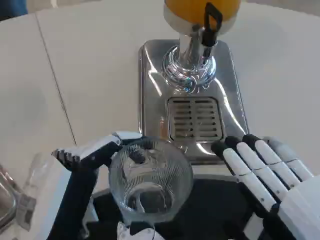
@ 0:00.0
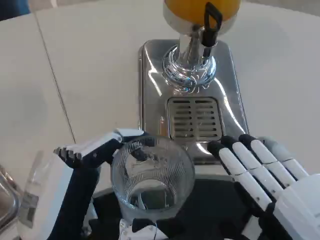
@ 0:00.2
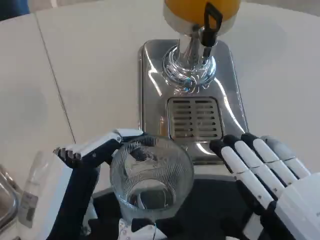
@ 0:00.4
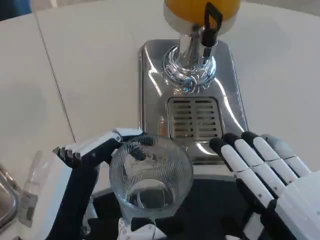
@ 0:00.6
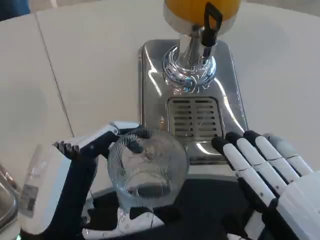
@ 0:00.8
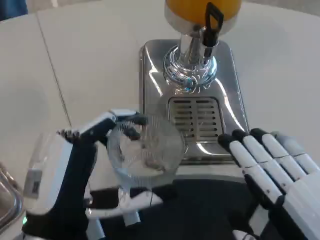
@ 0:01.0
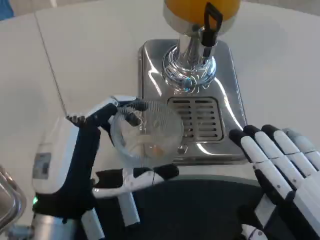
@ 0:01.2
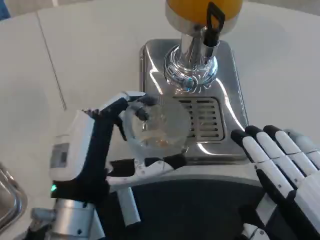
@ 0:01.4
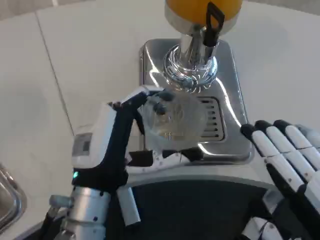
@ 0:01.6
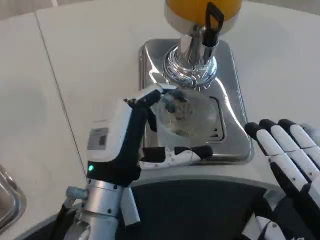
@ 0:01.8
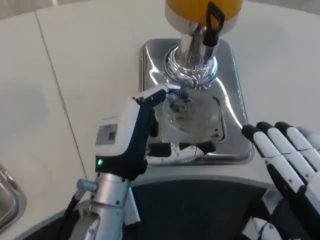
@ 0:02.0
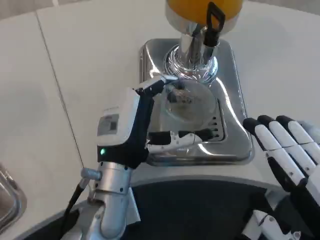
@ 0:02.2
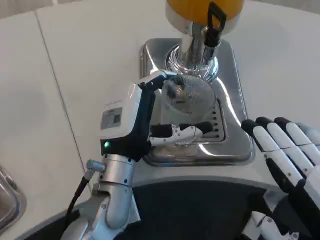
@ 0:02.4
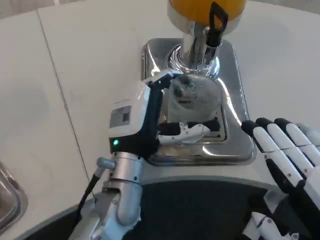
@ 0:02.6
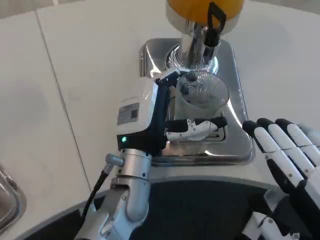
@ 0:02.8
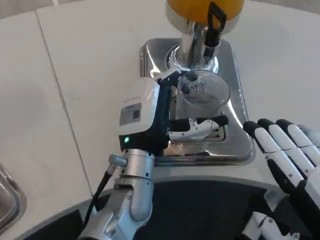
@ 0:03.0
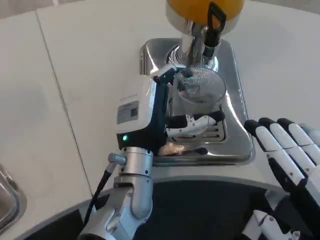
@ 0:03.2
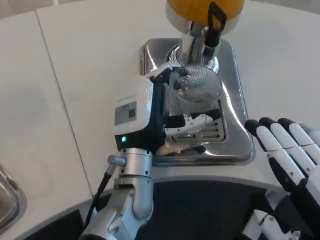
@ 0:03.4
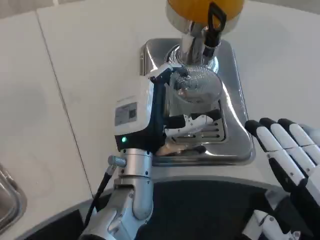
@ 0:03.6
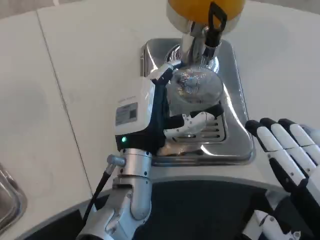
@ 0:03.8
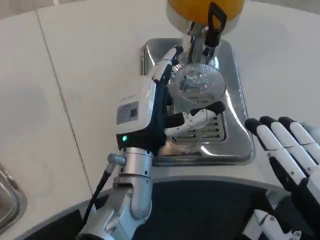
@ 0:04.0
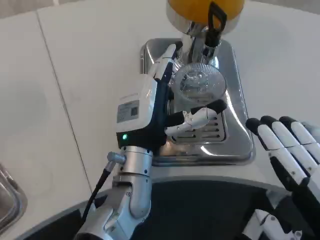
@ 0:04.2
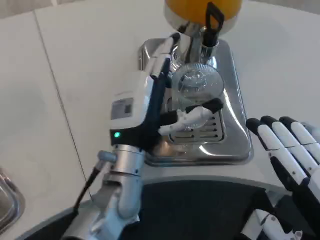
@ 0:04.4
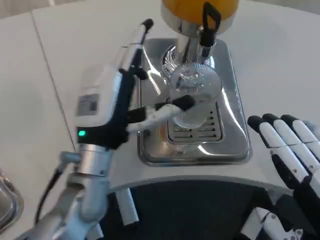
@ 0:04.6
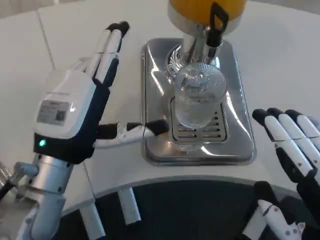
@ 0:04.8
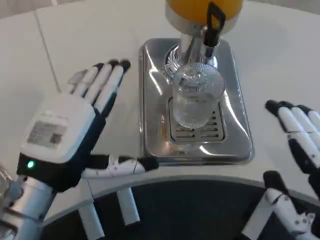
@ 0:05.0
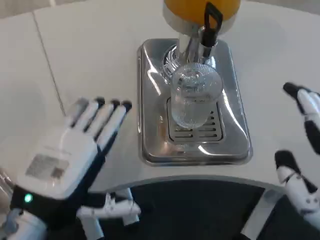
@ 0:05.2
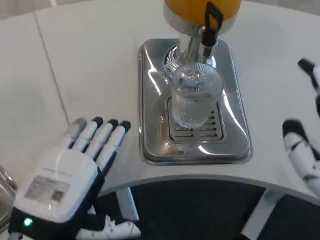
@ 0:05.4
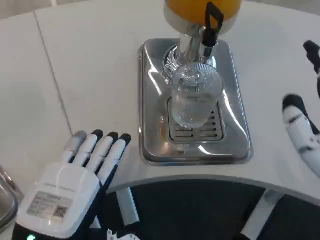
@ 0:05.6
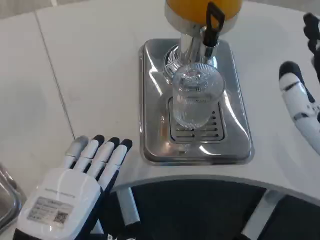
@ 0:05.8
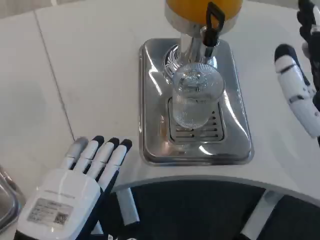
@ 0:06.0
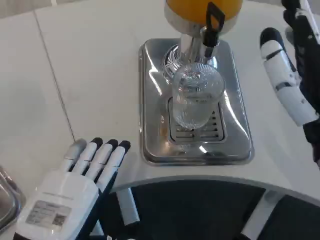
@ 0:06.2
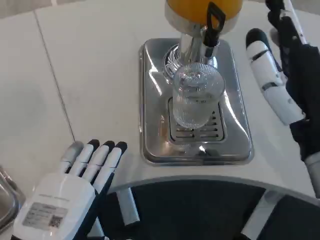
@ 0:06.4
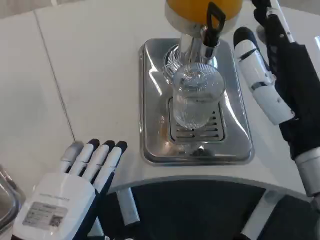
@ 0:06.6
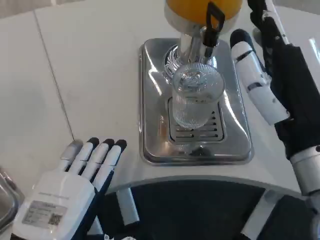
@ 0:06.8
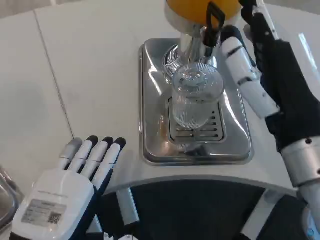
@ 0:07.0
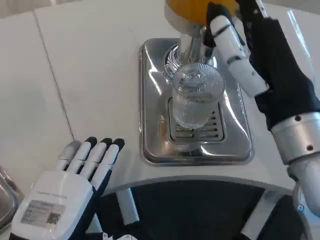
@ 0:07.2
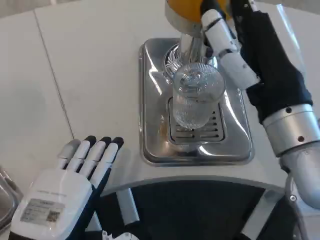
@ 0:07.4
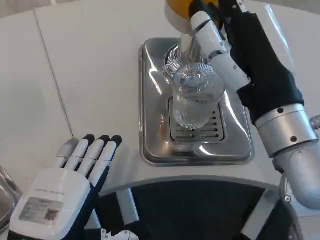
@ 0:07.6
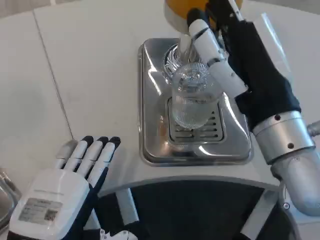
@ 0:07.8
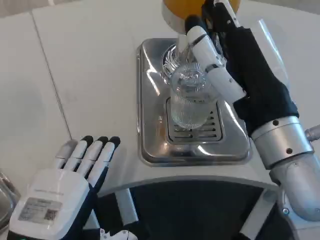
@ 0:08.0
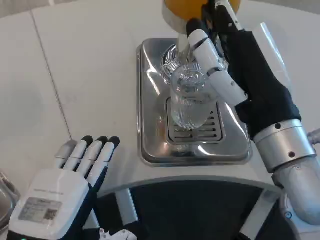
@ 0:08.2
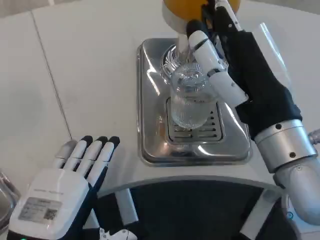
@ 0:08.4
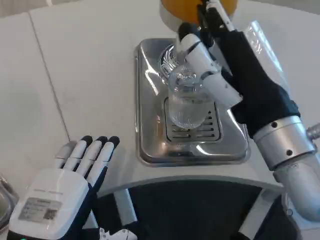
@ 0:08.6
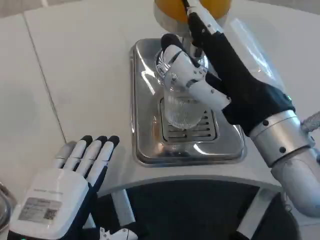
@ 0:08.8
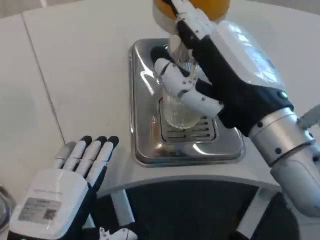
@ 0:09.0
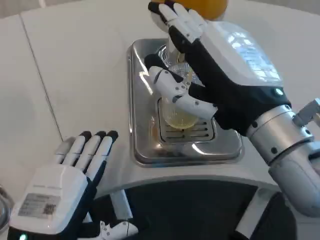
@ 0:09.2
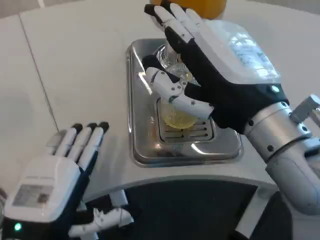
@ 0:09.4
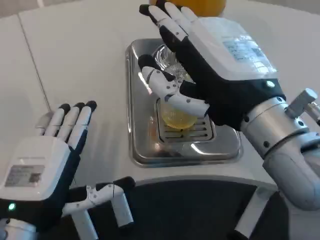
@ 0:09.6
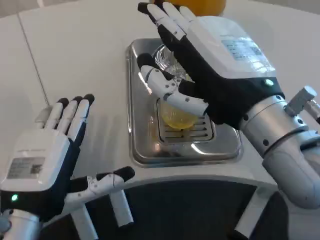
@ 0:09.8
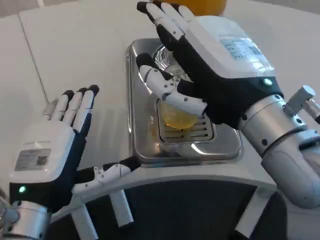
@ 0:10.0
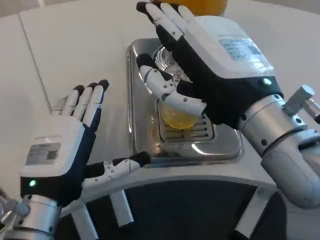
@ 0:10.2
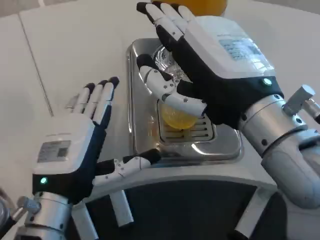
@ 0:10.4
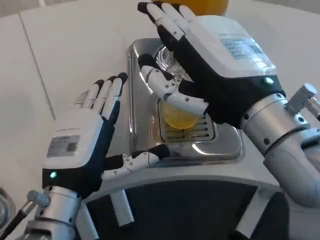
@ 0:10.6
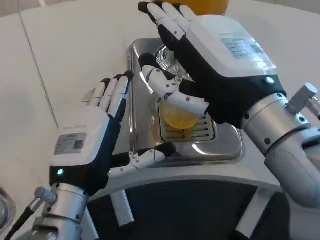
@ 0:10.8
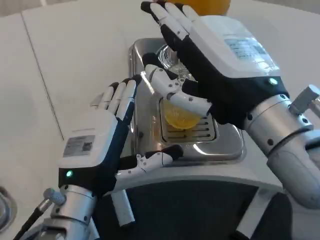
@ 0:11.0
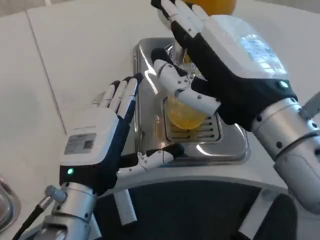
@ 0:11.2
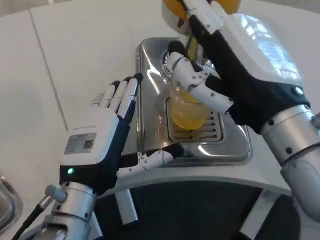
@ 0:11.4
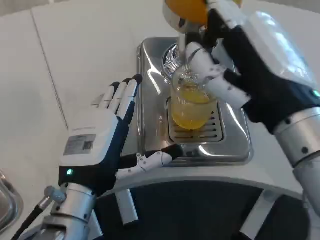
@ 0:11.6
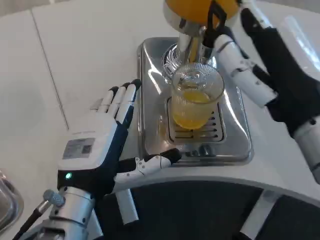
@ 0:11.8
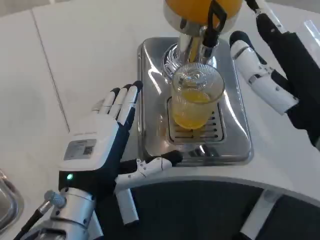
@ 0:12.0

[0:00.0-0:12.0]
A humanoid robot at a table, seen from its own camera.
Task of the whole recording: Grasp the cup under the faucet to collect the drink, then remove the cup.
0:00.0 to 0:01.6: The left hand goes approximately 10 cm forward.
0:01.6 to 0:03.0: The left hand goes roughly 10 cm forward and to the right.
0:04.4 to 0:06.0: The right hand heads forward, covering roughly 10 cm; the left hand moves backward and to the left, some 20 cm.
0:06.0 to 0:07.6: The right hand is displaced to the left and forward by some 5 cm.
0:09.0 to 0:10.4: The left hand moves forward, about 5 cm.
0:10.4 to 0:12.0: The right hand shifts some 5 cm to the right.

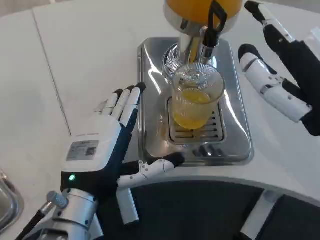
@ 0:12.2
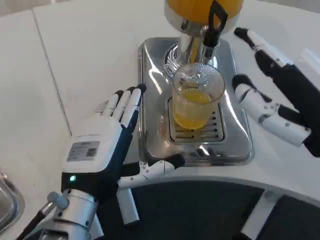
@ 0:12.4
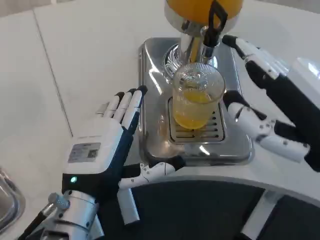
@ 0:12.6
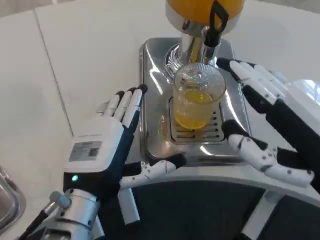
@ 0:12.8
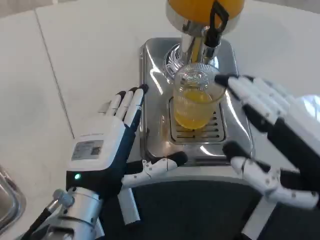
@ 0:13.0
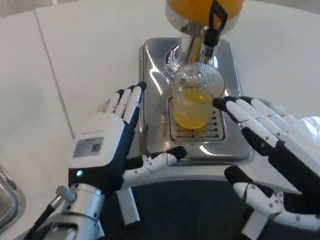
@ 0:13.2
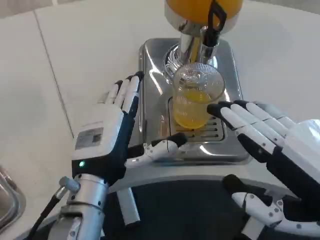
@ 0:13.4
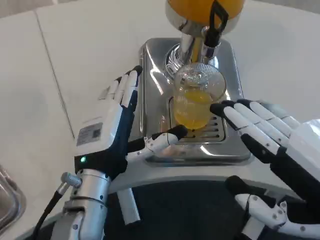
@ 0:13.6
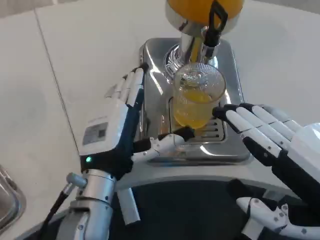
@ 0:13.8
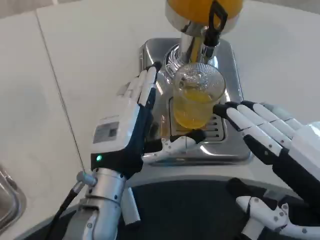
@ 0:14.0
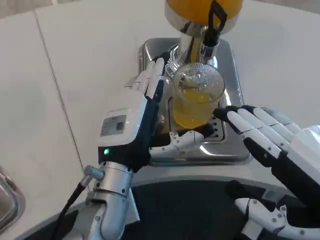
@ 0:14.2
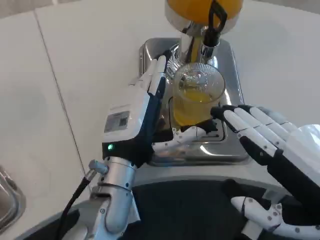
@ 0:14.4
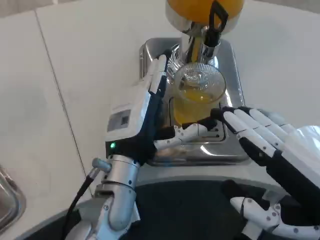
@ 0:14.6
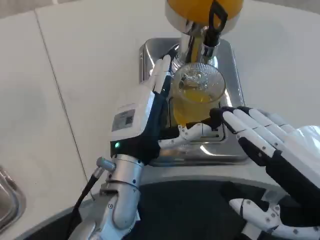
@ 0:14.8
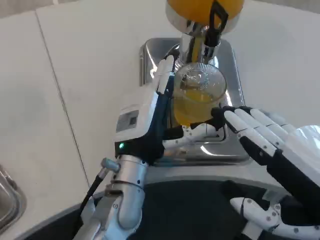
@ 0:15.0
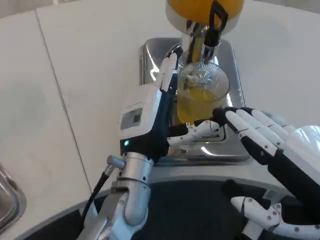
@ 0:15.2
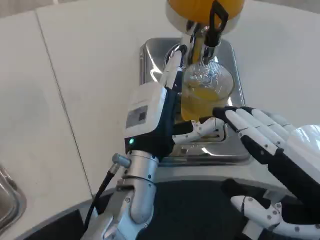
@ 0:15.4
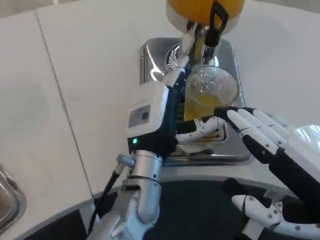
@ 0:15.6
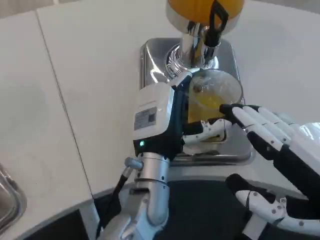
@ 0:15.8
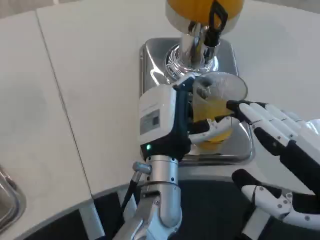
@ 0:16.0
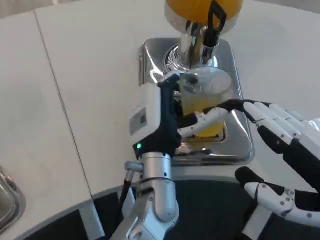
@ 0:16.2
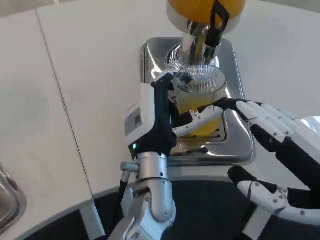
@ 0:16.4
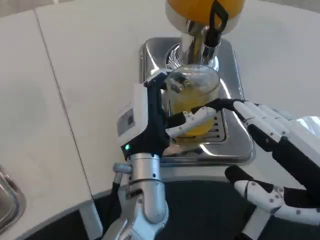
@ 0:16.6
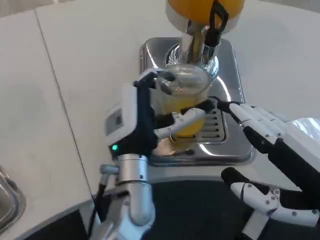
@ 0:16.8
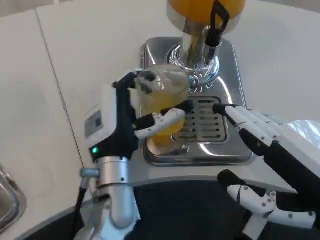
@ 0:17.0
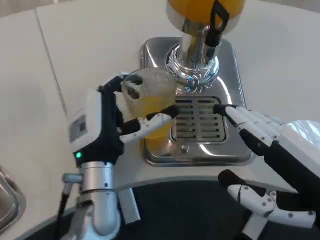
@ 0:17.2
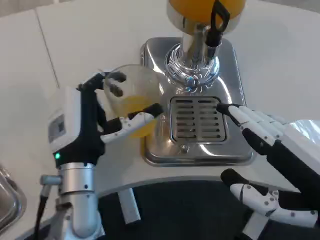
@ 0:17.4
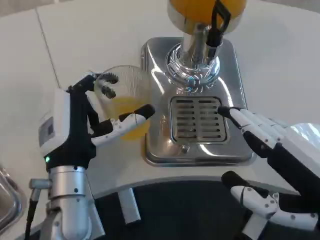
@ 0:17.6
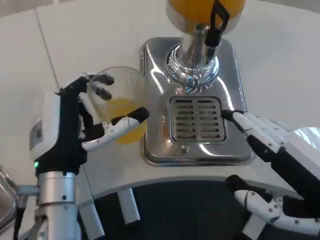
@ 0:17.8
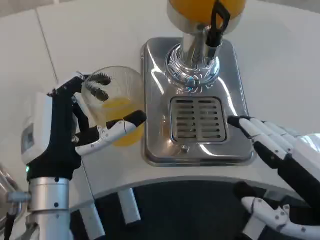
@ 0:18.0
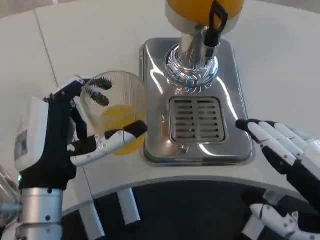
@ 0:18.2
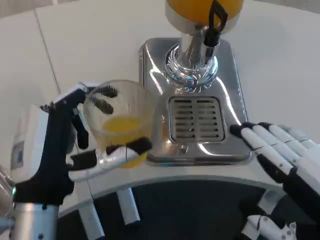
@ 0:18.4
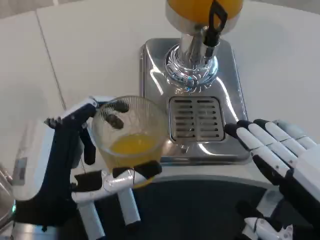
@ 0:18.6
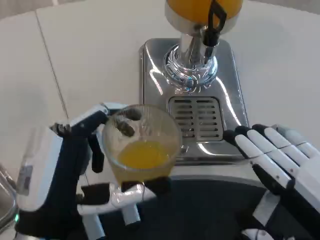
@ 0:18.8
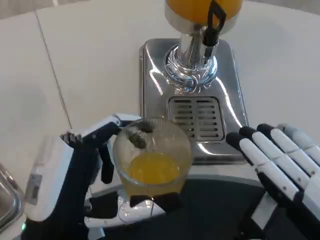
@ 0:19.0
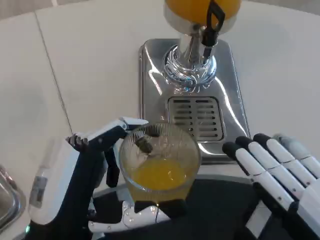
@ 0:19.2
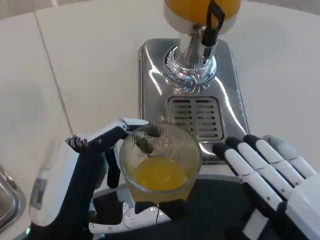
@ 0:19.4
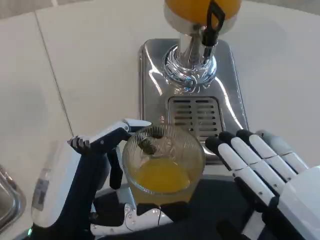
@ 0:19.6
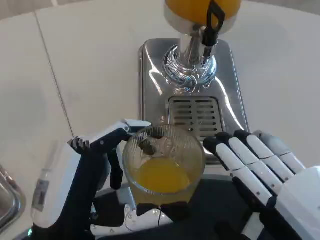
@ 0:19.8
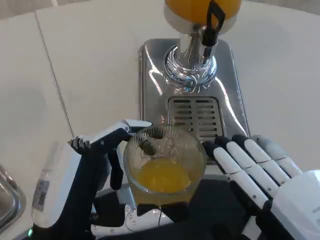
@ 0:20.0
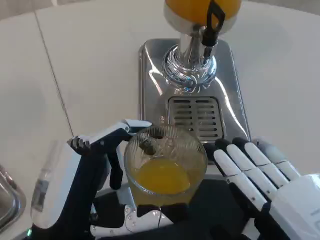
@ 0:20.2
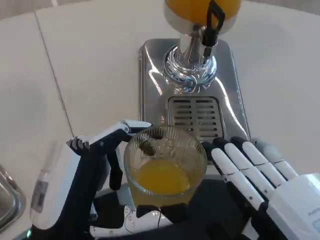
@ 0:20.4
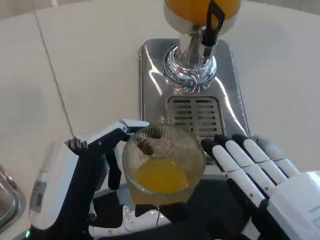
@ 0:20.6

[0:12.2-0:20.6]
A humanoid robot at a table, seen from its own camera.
Task of the whole recording: Grasp the cup under the faucet to collect the drink, then remove the cup.
0:12.2 to 0:13.6: The right hand shifts by roughly 10 cm.
0:13.6 to 0:15.0: The left hand moves to the right, about 5 cm.
0:16.4 to 0:17.8: The left hand goes roughly 15 cm to the left.
0:17.8 to 0:19.2: The right hand is displaced backward by roughly 5 cm. The left hand heads backward, covering about 10 cm.
0:19.2 to 0:20.6: The hands stay close to where they were, moving slightly.
